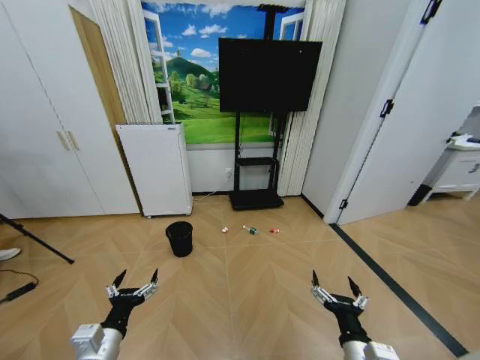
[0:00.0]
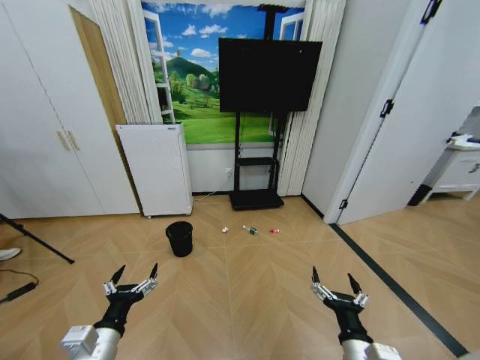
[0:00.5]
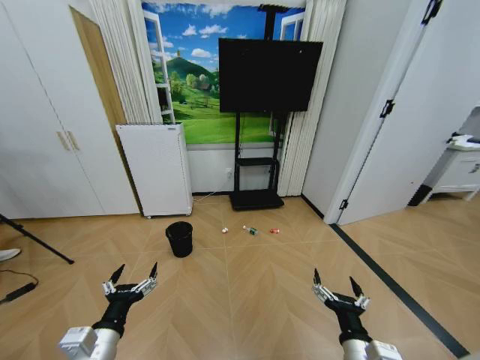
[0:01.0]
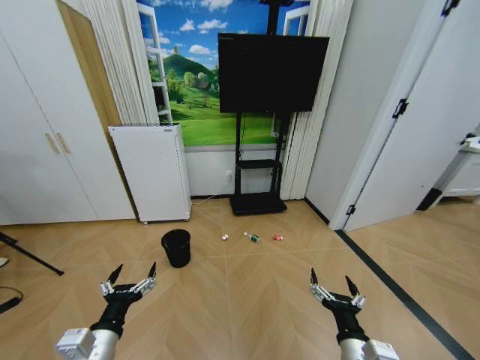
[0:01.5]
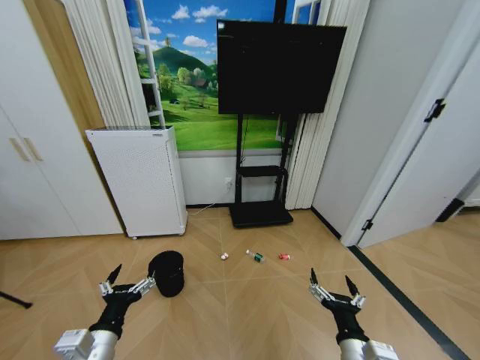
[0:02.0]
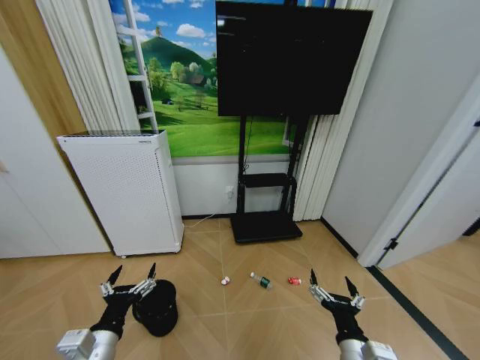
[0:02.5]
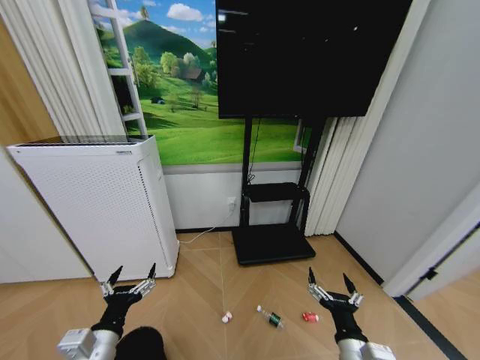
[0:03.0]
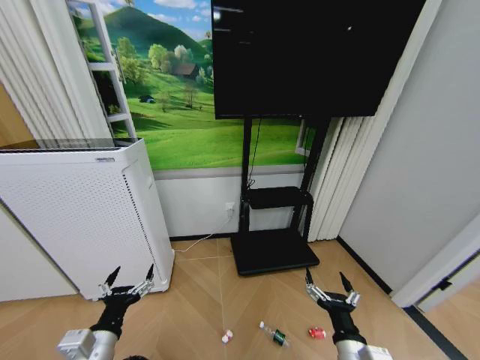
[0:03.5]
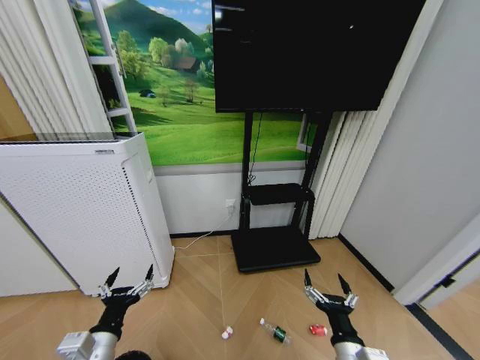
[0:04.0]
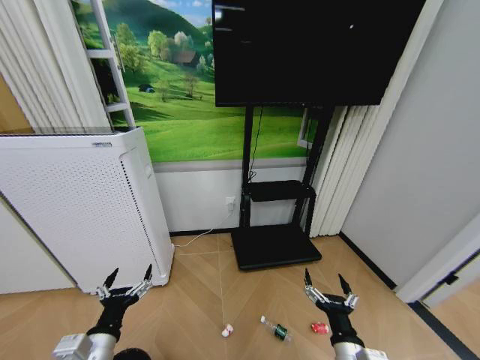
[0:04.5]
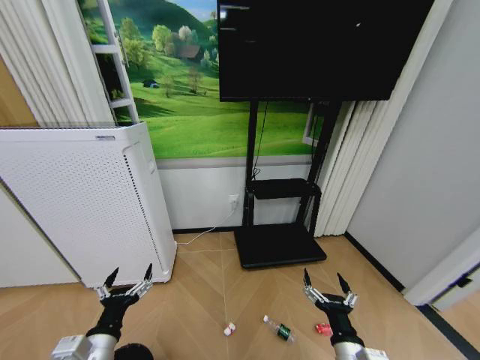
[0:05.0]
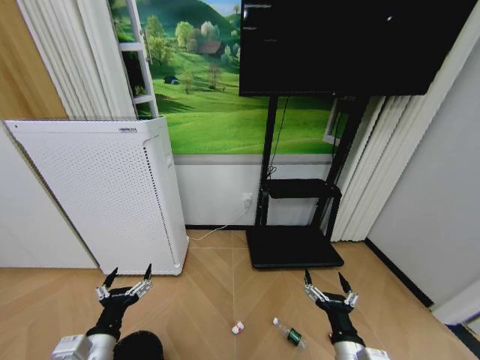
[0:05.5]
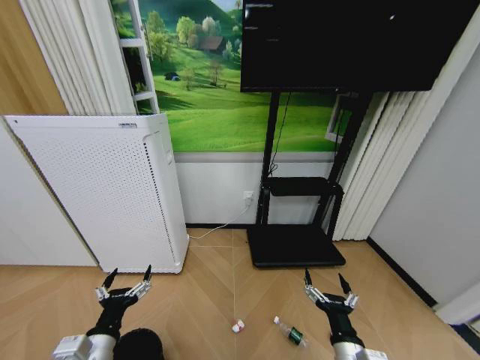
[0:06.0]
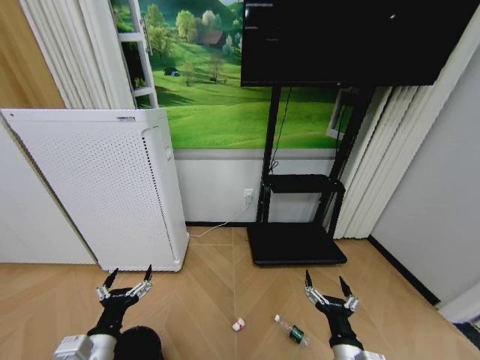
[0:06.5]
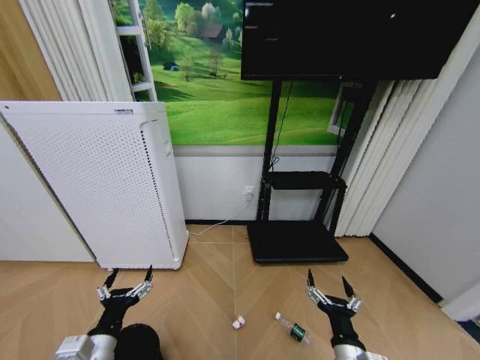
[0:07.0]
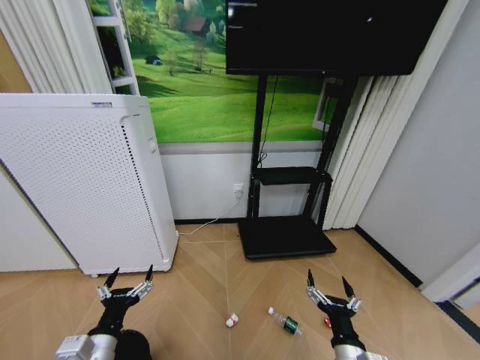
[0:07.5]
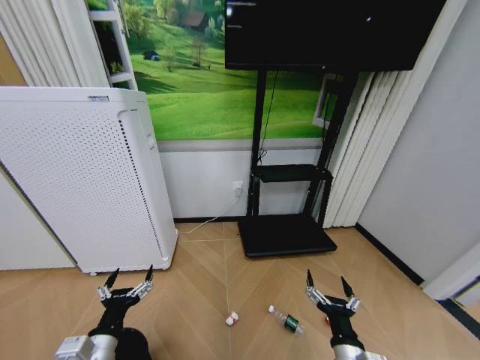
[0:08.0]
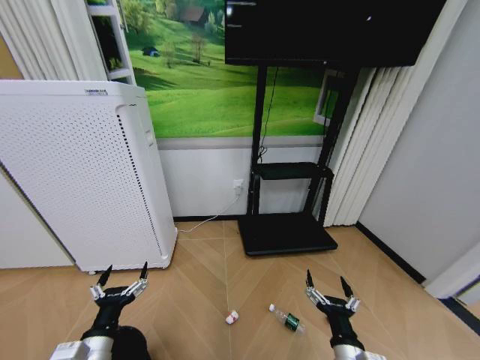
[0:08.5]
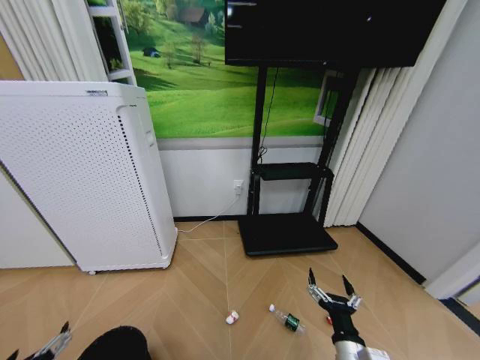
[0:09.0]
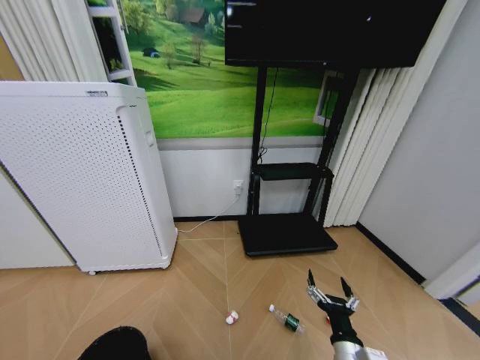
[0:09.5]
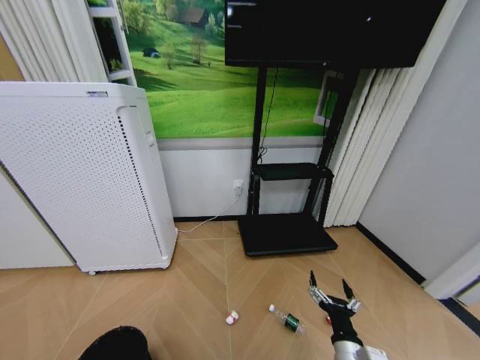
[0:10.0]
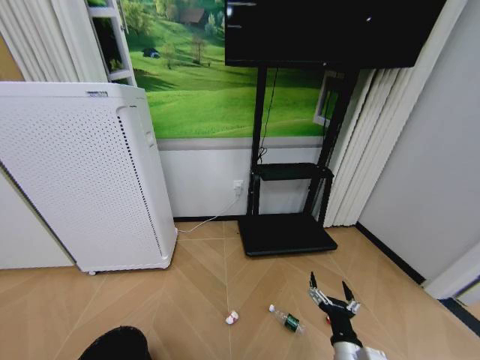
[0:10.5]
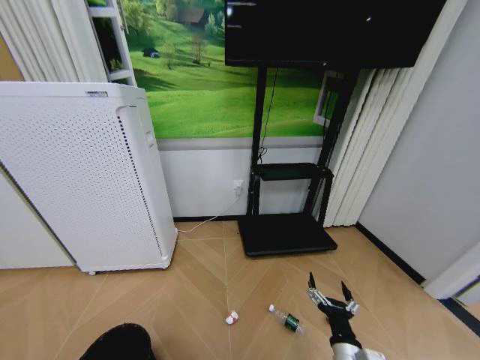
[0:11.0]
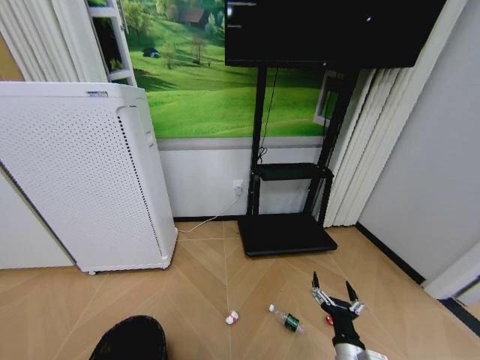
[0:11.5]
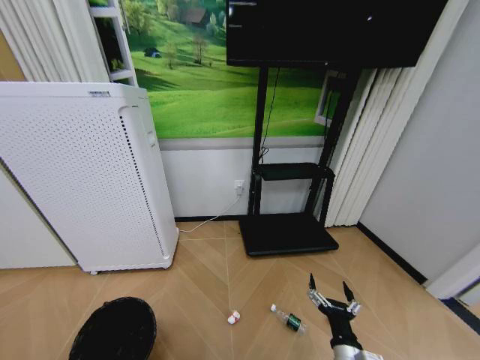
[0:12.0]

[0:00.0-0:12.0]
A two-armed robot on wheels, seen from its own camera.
Task of the whole recording: Pick up the trash bin and place the garbage on the floor into it.
0:08.0 to 0:10.0: The left gripper shifts about 15 cm backward and to the left.
0:10.0 to 0:12.0: The left gripper changes place by approximately 5 cm, and closes.

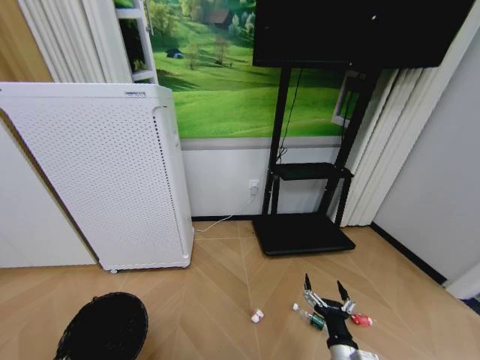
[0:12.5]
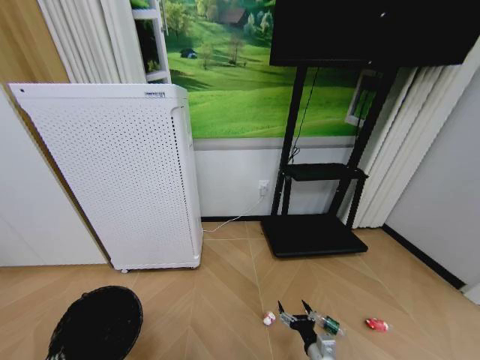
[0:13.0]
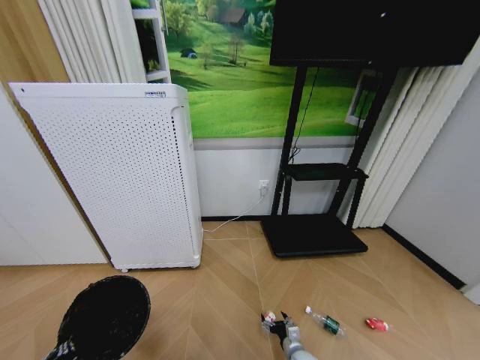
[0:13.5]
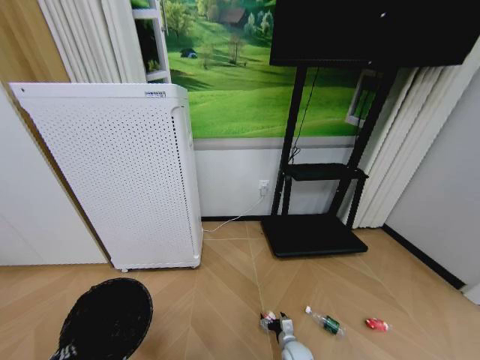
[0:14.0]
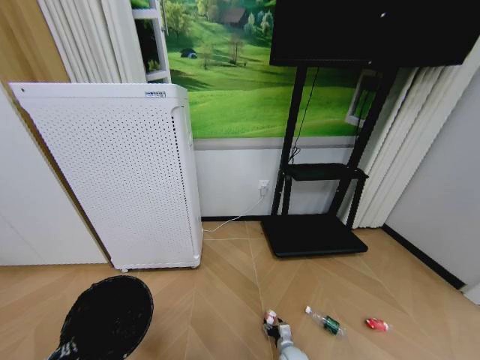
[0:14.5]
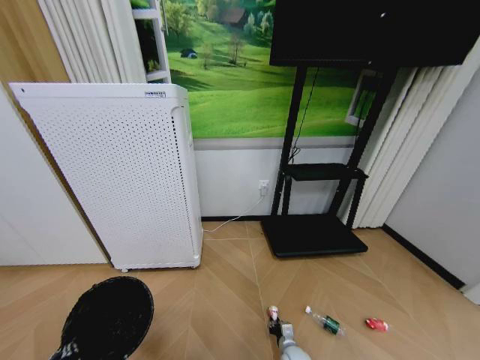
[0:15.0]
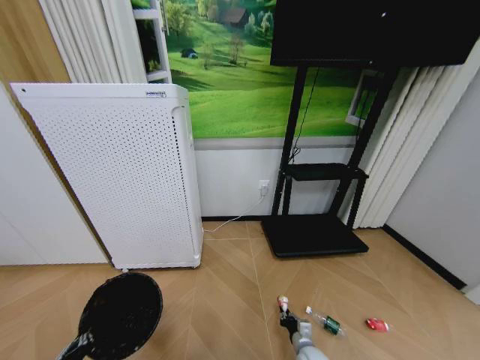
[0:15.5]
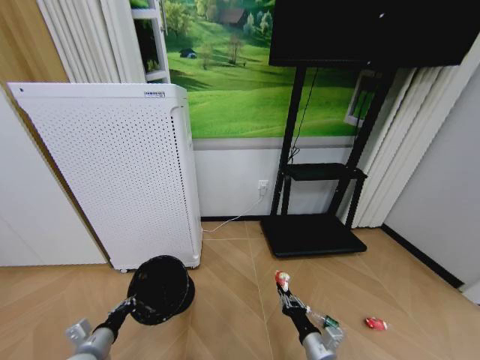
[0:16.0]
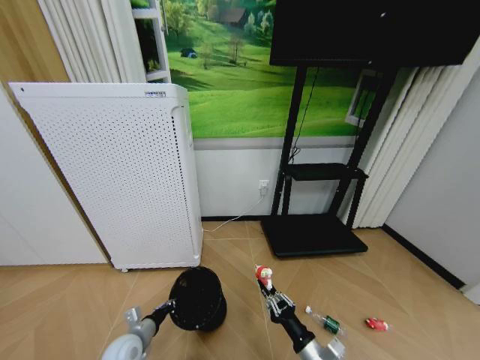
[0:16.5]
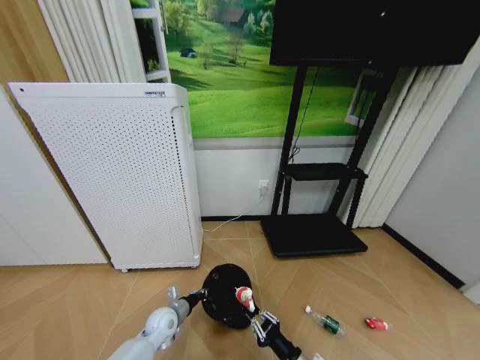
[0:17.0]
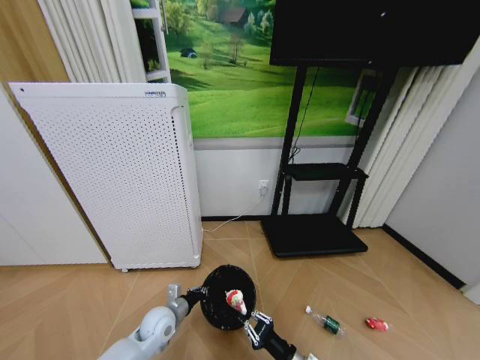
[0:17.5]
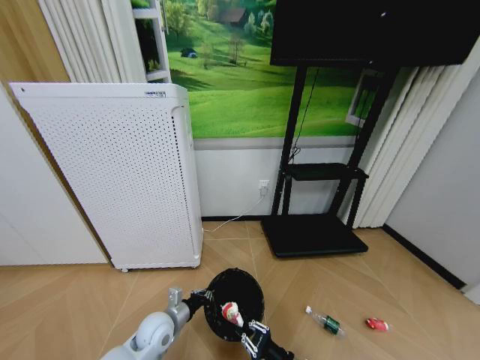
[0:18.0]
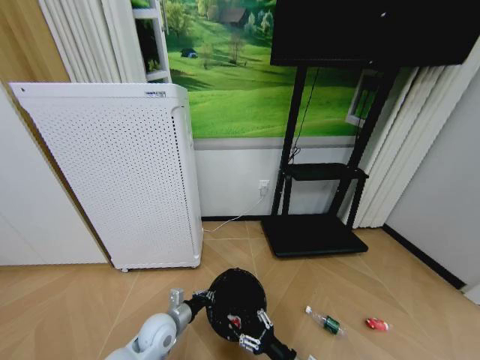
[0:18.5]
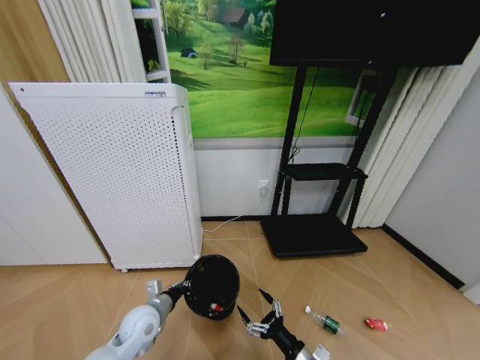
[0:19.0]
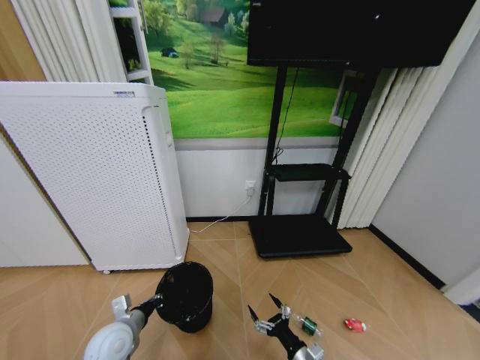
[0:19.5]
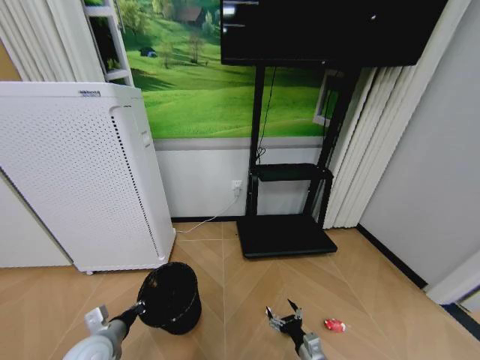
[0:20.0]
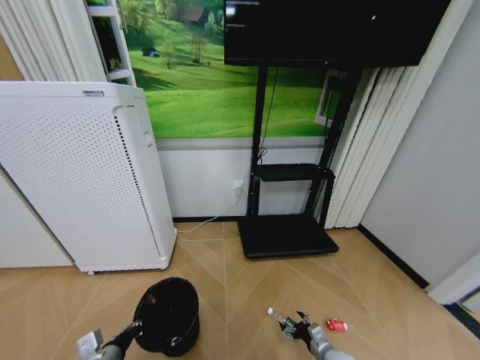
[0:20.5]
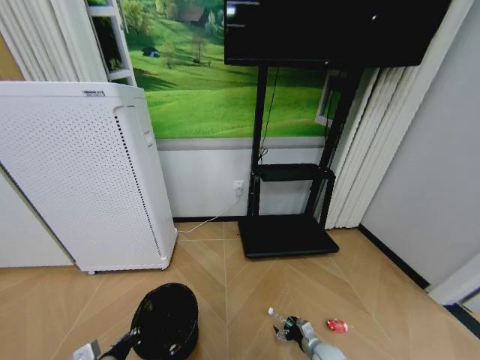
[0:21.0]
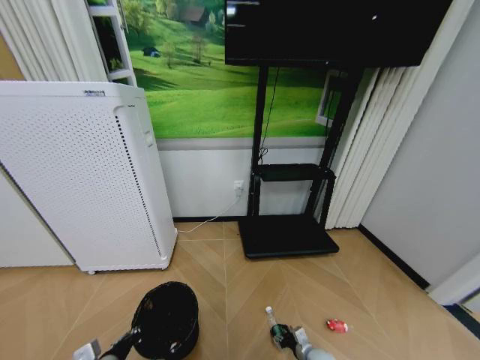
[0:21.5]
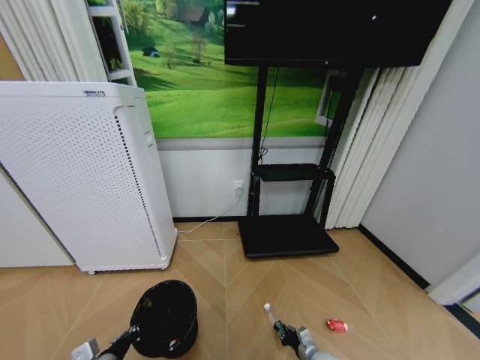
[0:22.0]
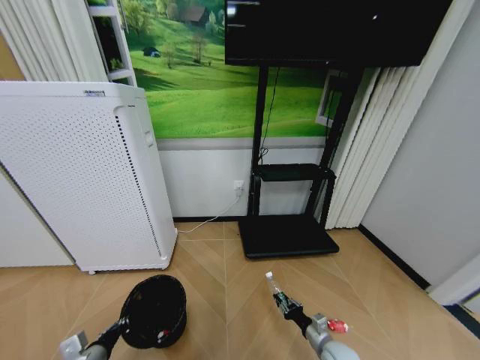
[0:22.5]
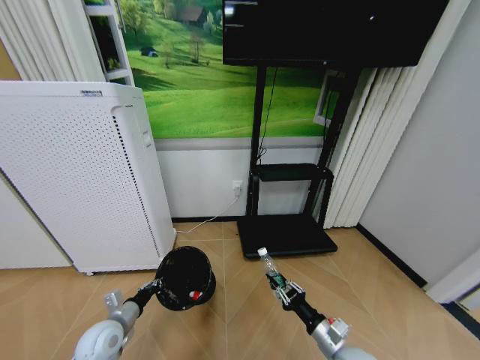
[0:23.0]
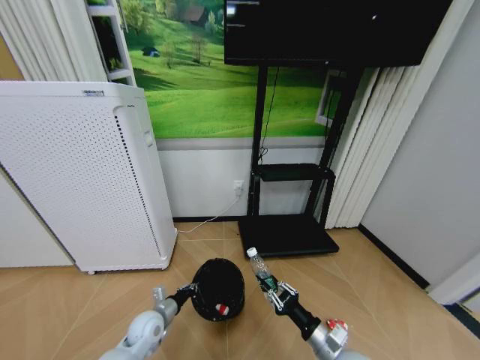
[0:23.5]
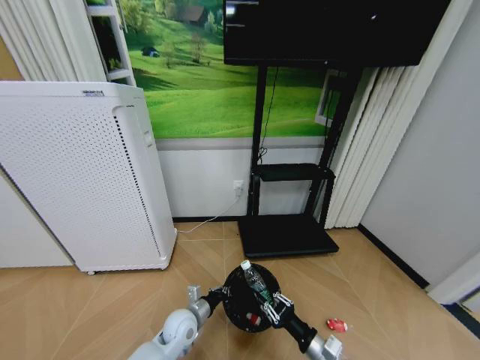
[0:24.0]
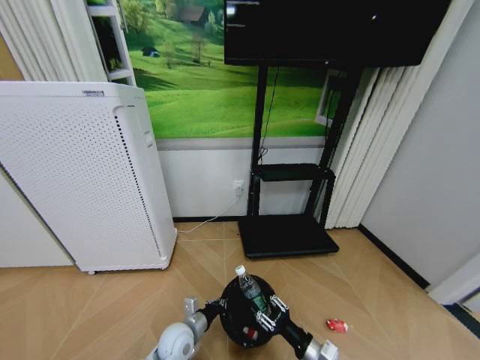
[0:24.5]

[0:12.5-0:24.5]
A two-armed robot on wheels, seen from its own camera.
Task of the whole recording: Pick up the trash bin and place the garbage on the floor into it.
0:12.5 to 0:14.5: The right gripper shifts roughly 30 cm downward and forward. Meanwhile the left gripper moves upward, approximately 5 cm.
0:14.5 to 0:16.5: The left gripper heads forward and downward, covering approximately 20 cm. The right gripper is displaced upward by roughly 25 cm, and closes.
0:16.5 to 0:18.5: The right gripper opens its fingers. The left gripper travels to the right by approximately 10 cm.
0:18.5 to 0:20.5: The left gripper travels to the left, backward and upward by about 15 cm; the right gripper shifts approximately 15 cm to the right, downward and forward, and opens.
0:20.5 to 0:22.5: The right gripper closes its fingers.
0:22.5 to 0:24.5: The right gripper shifts some 15 cm upward, backward and to the left. The left gripper goes roughly 20 cm to the right and forward.

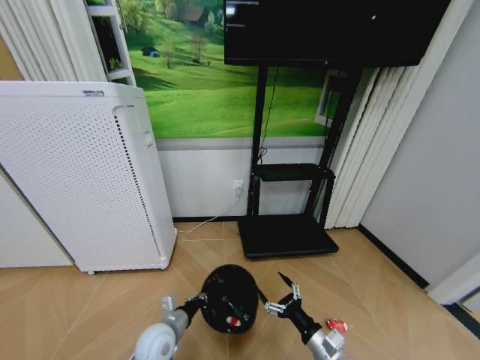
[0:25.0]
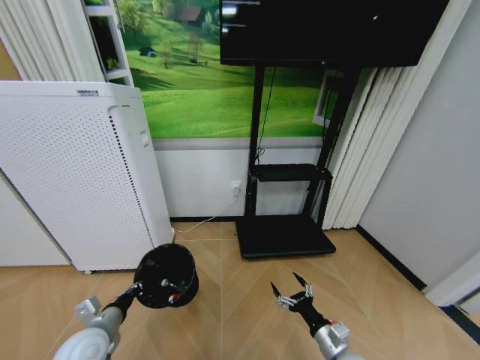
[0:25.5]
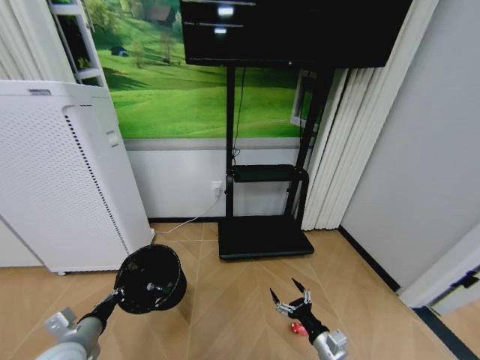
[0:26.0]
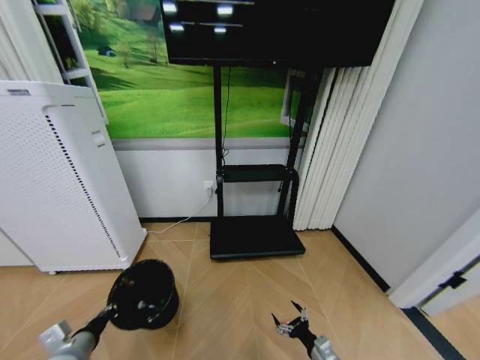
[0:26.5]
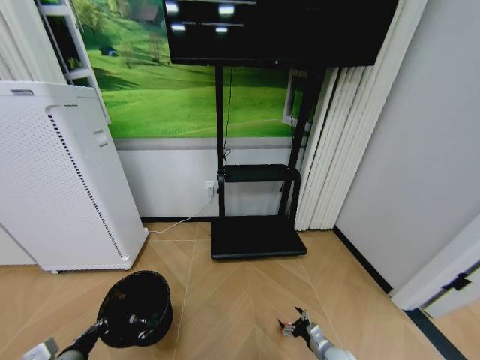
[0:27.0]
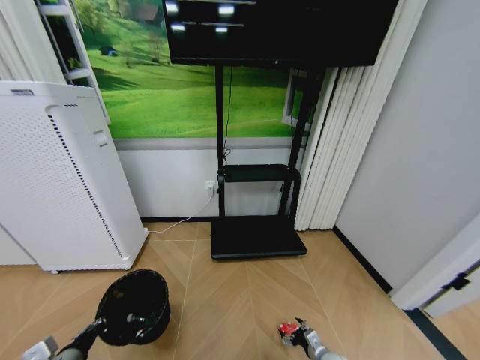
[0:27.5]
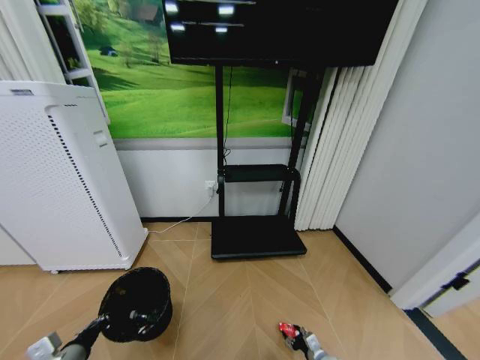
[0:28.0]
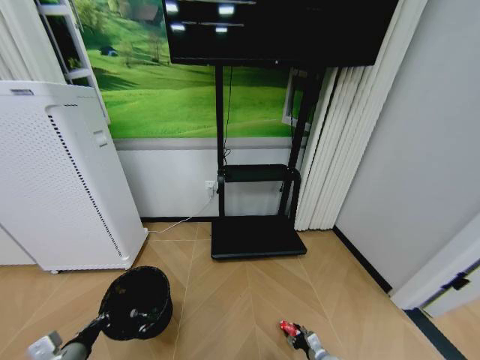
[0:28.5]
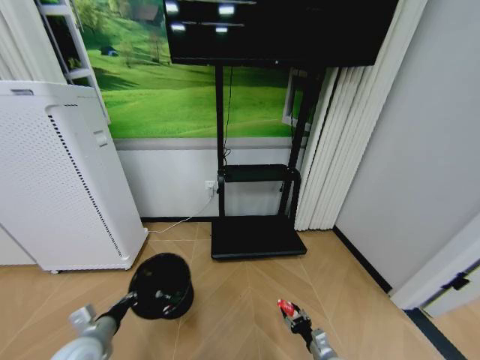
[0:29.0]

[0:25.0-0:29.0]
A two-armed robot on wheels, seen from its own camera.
Task of the whole recording: Pick up the trash bin and place the garbage on the floor into it.
0:25.0 to 0:27.0: The right gripper goes roughly 20 cm downward and to the right, while the left gripper goes about 20 cm to the left and backward.
0:27.0 to 0:29.0: The left gripper ends up about 5 cm from where it was. Meanwhile the right gripper closes up.
